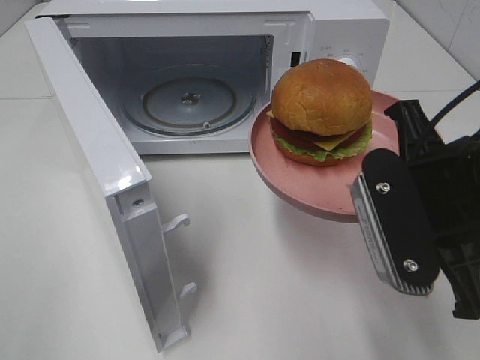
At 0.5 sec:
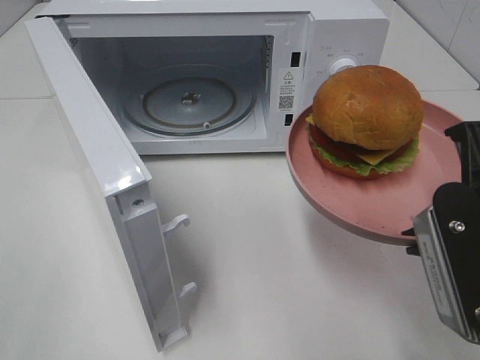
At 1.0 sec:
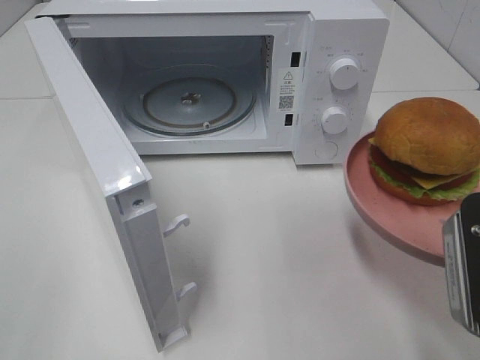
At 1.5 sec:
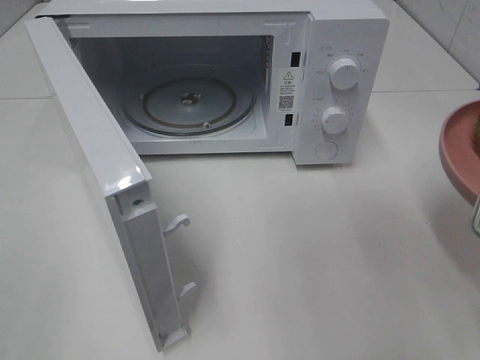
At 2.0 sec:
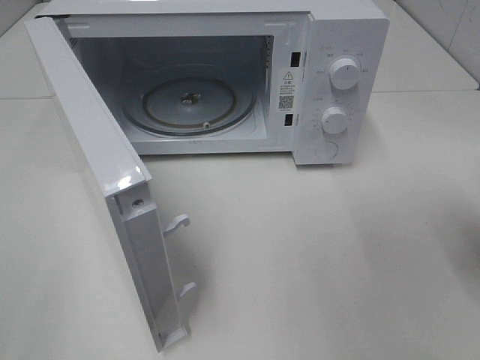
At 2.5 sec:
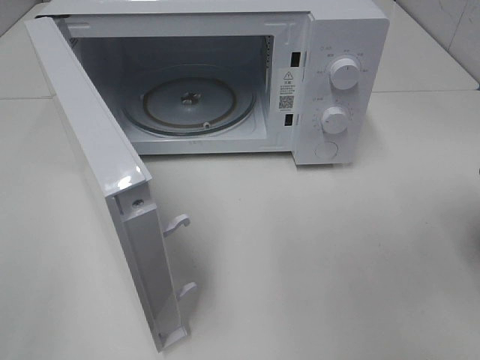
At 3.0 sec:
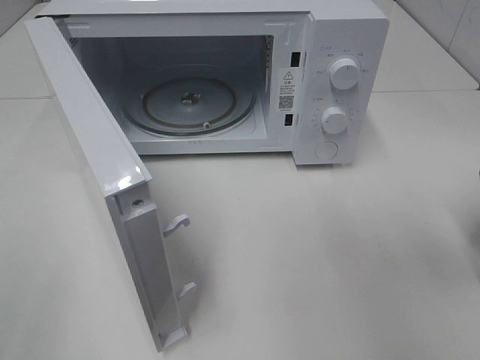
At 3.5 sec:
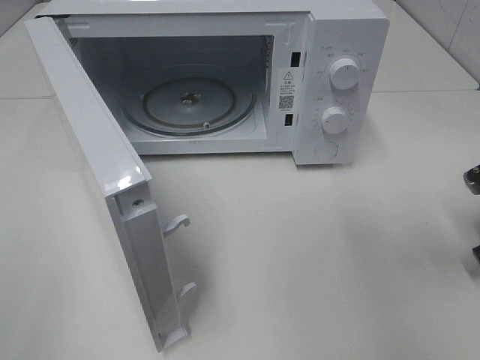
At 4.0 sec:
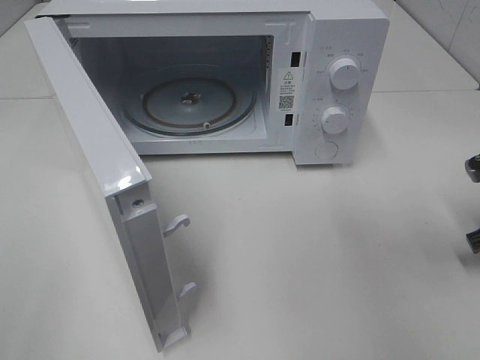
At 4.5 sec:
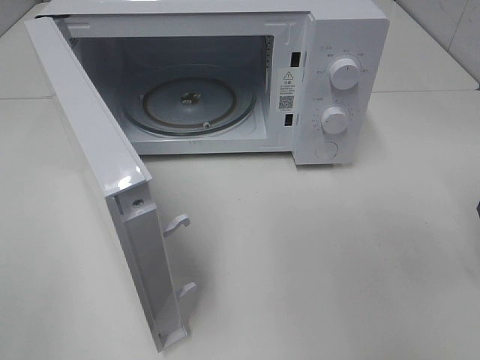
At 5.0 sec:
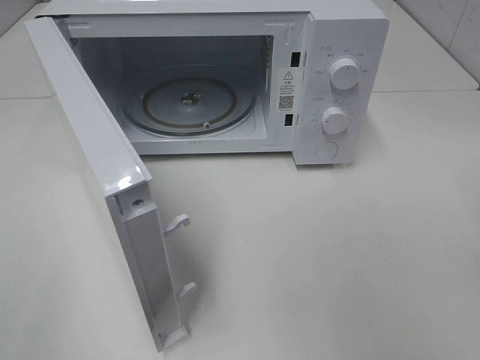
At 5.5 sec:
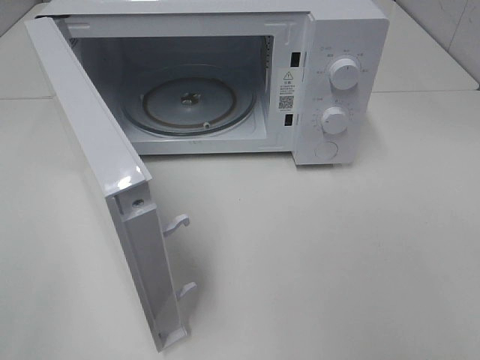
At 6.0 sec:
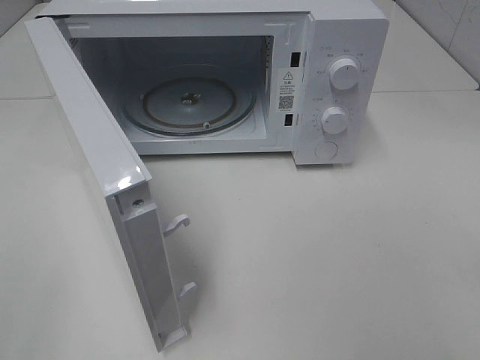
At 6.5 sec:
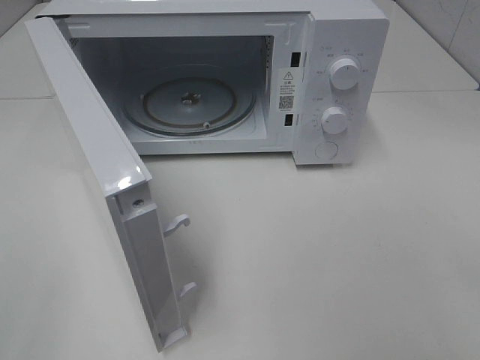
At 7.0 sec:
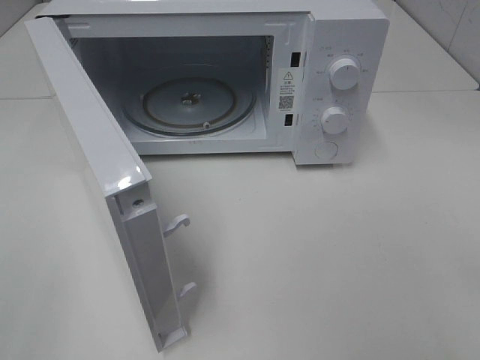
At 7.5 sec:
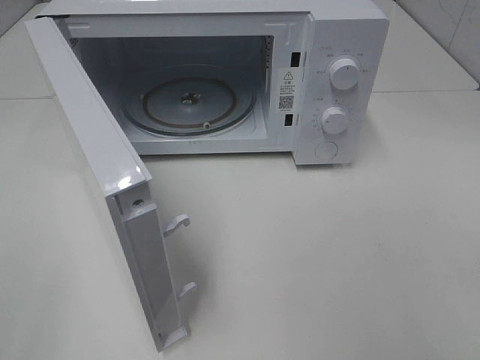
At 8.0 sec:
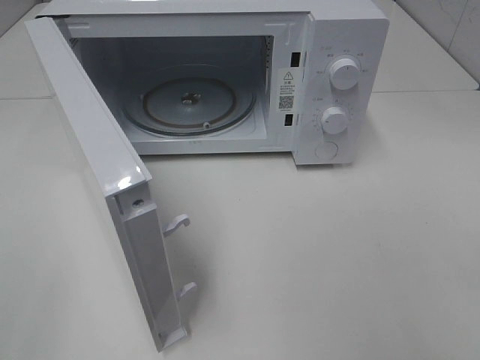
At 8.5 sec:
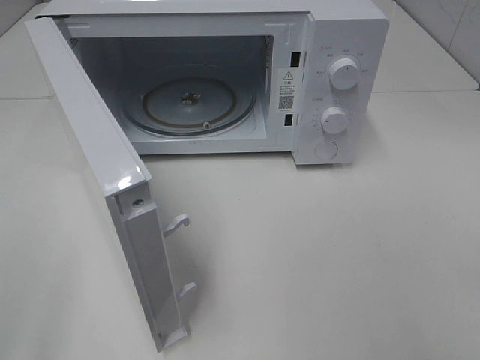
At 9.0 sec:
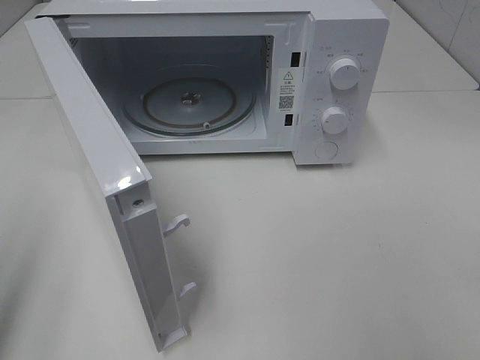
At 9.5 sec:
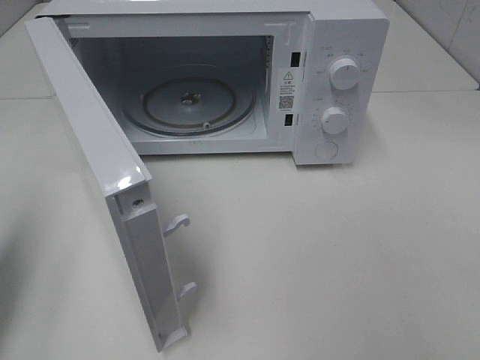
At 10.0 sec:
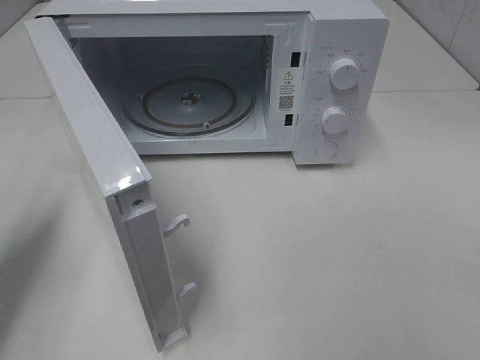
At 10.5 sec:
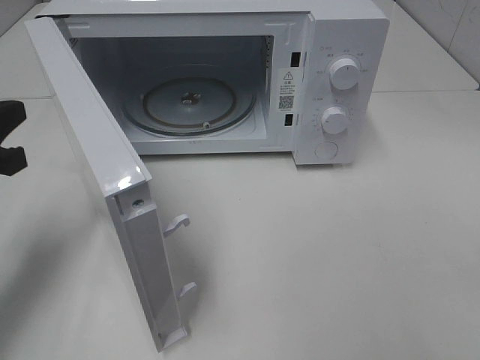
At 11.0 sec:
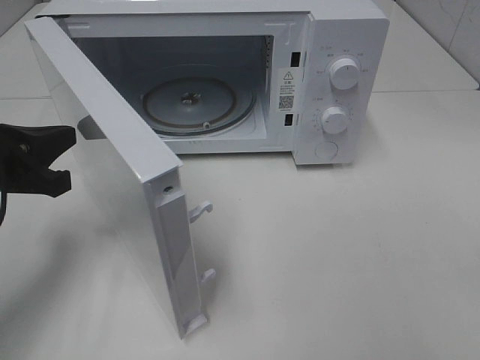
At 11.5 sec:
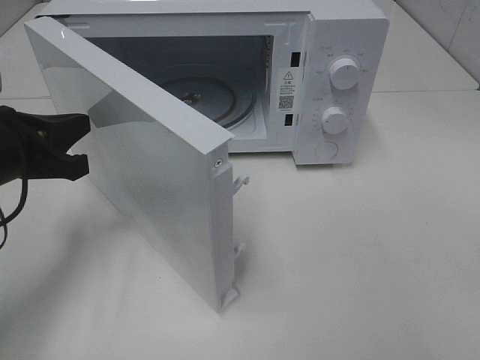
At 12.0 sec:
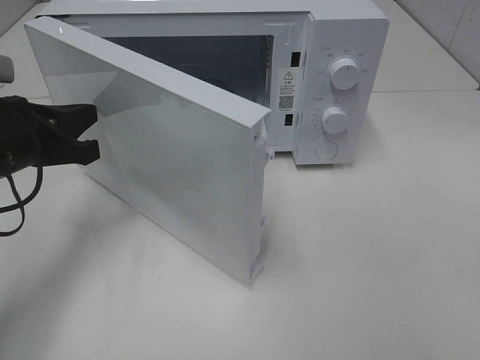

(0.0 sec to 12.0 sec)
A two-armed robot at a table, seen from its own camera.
Task of the whole recording: Heat the burger.
Step, 0.0 sec - 4.0 sec: Right hand: place the plate on the table.
0.0 sec - 2.0 sec: The right gripper shifts approximately 10 cm to the right.
4.0 sec - 6.0 sec: The right gripper is displaced backward and upward by about 30 cm.
6.0 sec - 8.0 sec: Neither gripper changes place.
8.0 sec - 10.0 sec: The left gripper travels forward by about 25 cm, and closes.
10.0 sec - 12.0 sec: The left gripper shifts about 10 cm to the right.

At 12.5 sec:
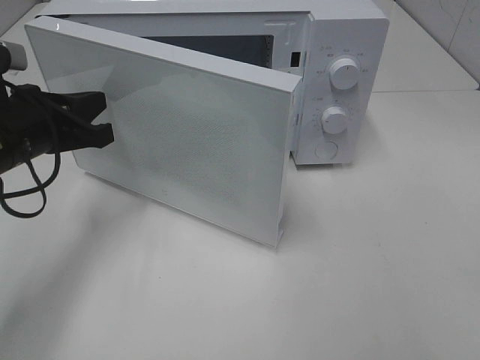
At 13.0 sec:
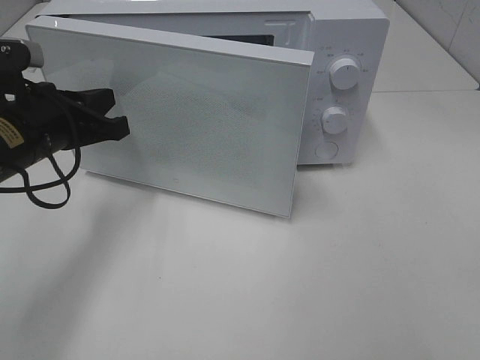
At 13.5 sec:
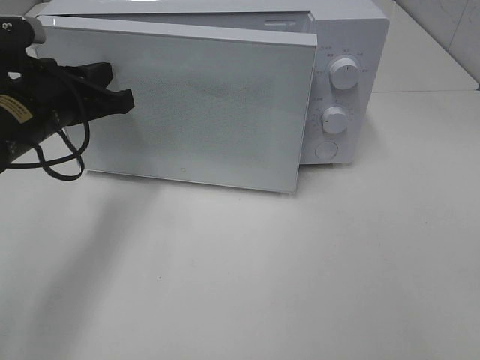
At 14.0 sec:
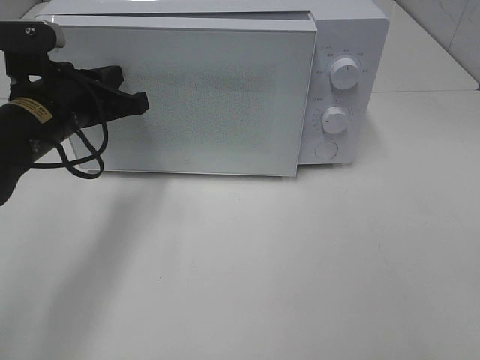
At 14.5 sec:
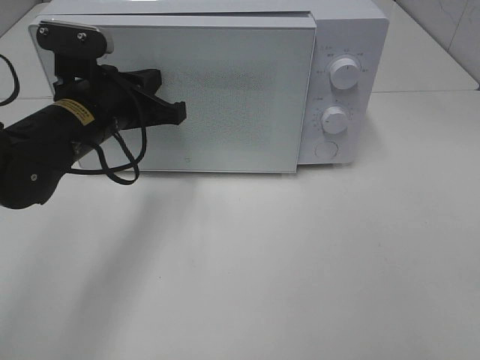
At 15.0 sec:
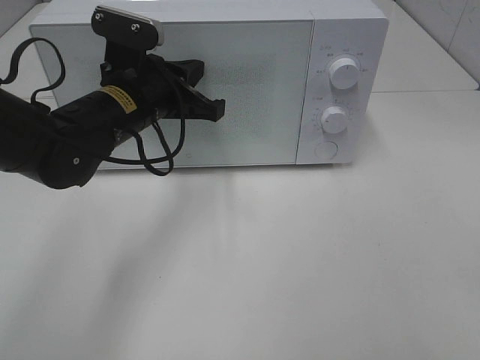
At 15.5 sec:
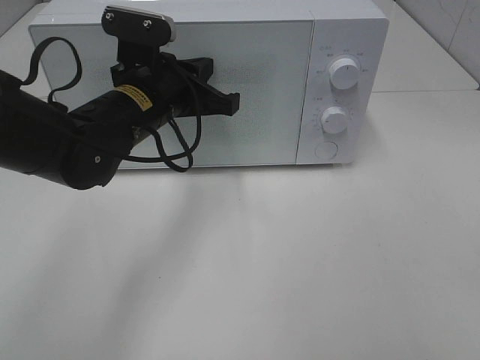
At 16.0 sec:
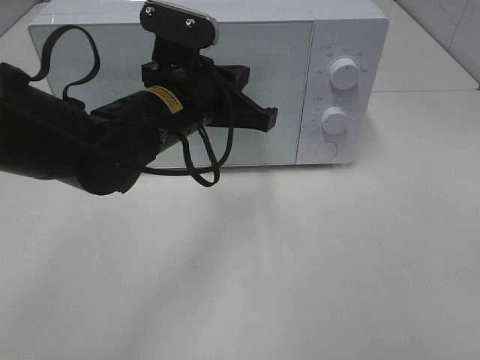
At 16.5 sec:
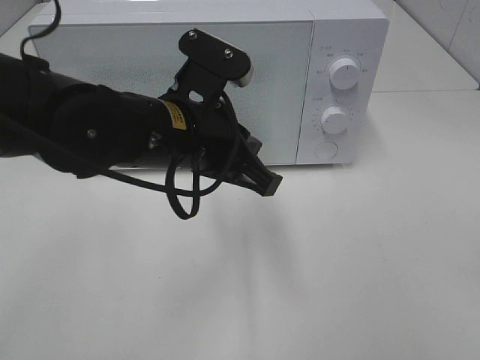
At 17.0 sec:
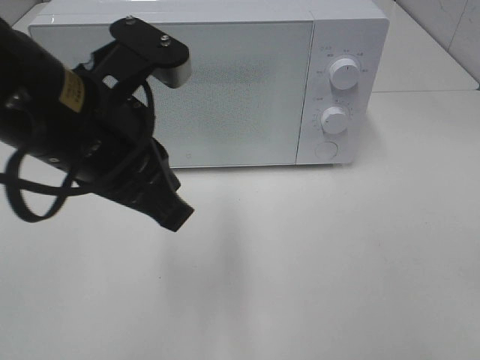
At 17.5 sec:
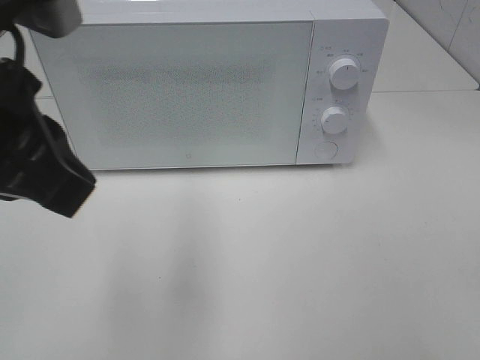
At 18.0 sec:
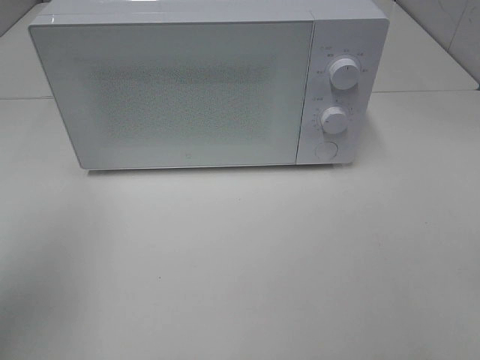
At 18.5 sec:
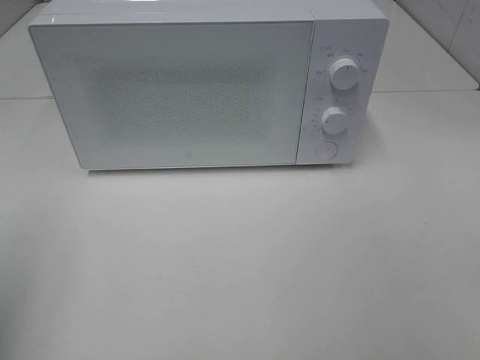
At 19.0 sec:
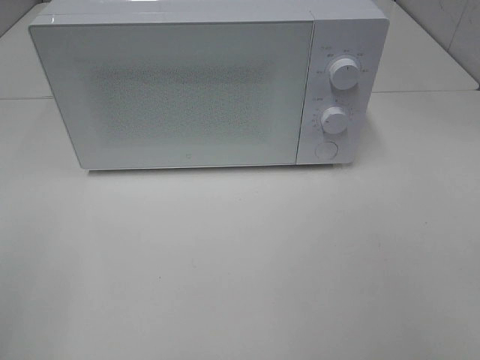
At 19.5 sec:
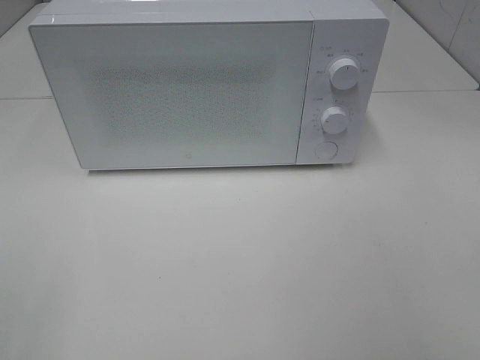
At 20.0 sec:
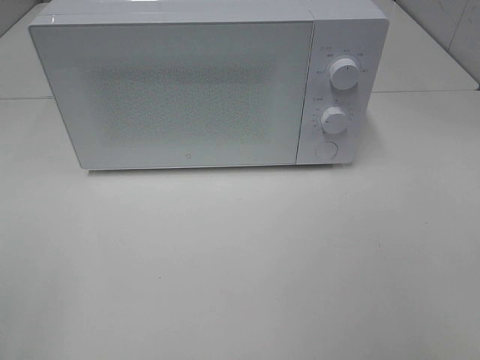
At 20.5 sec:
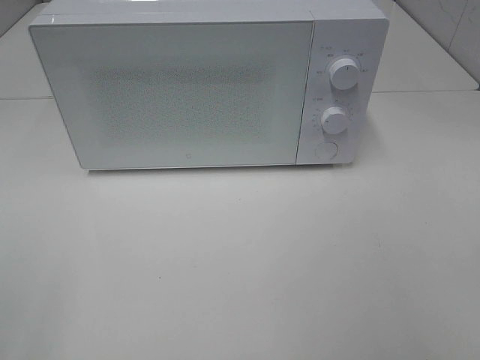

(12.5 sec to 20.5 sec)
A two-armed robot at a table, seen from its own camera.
Task of the whole recording: Heat the burger.
Step, 12.5 sec - 16.5 sec: Left hand: close the microwave door.
12.5 sec - 14.5 sec: The left gripper is displaced to the right by about 5 cm.
14.5 sec - 16.5 sec: The left gripper moves to the right and backward, approximately 10 cm.
16.5 sec - 18.5 sec: The left gripper travels to the left and backward by roughly 30 cm, and opens up.
